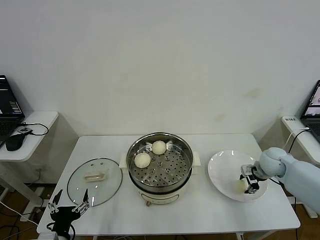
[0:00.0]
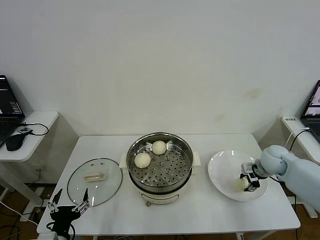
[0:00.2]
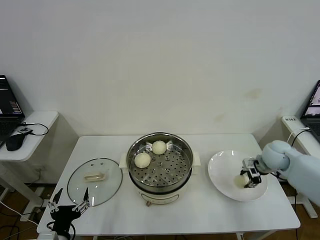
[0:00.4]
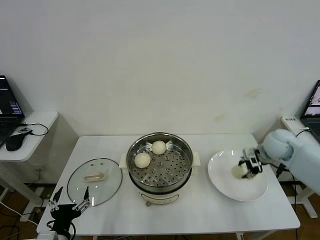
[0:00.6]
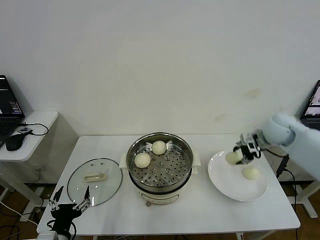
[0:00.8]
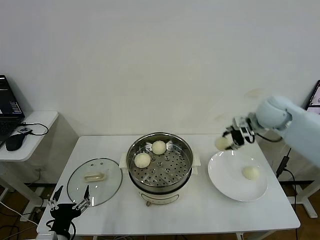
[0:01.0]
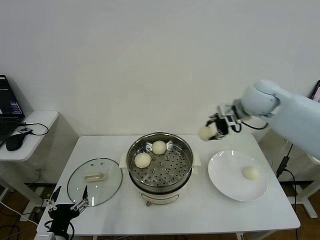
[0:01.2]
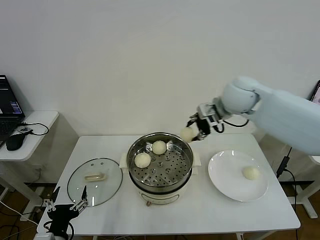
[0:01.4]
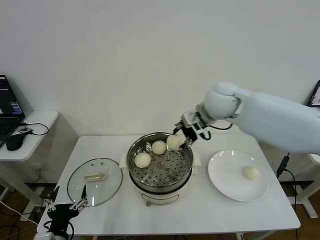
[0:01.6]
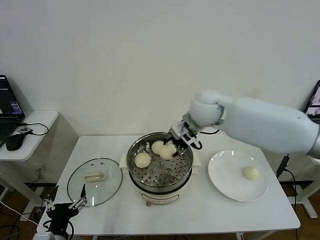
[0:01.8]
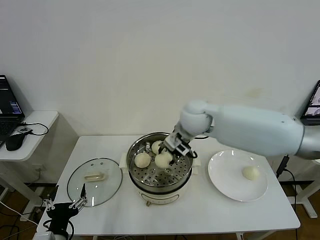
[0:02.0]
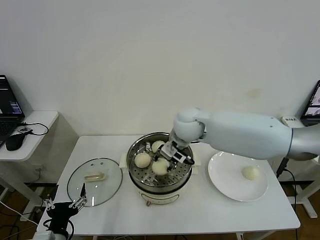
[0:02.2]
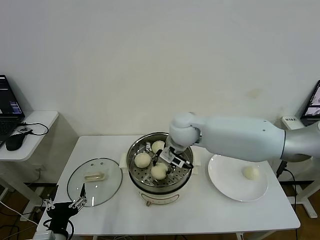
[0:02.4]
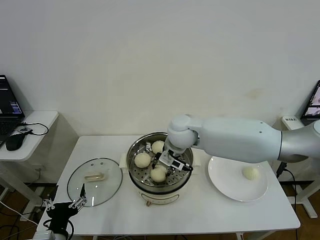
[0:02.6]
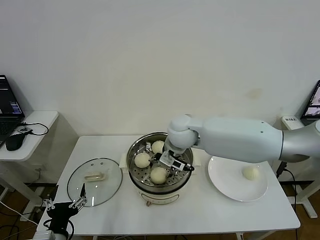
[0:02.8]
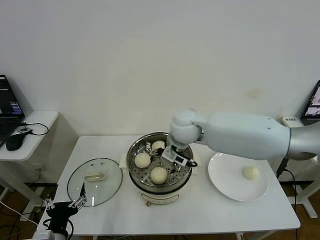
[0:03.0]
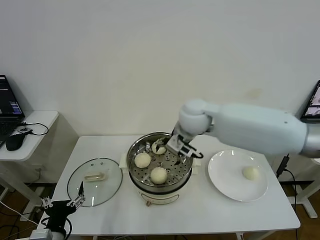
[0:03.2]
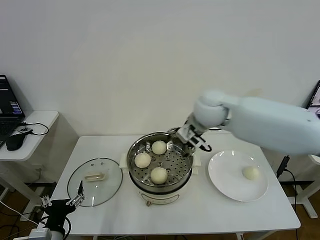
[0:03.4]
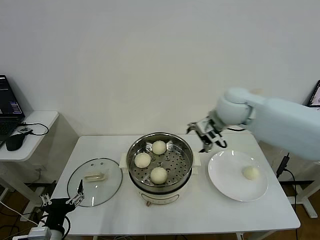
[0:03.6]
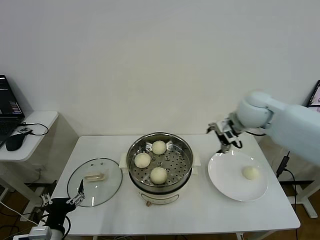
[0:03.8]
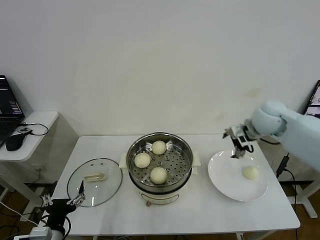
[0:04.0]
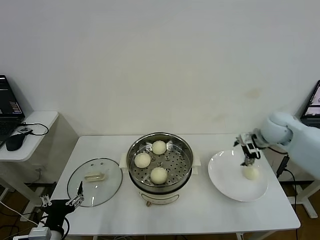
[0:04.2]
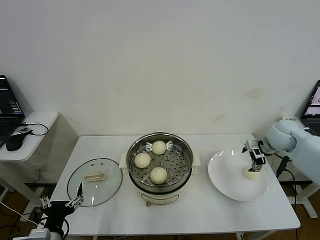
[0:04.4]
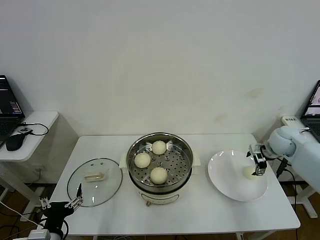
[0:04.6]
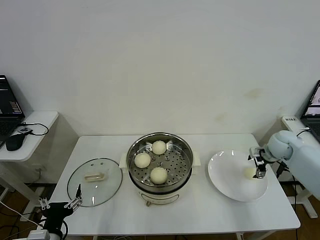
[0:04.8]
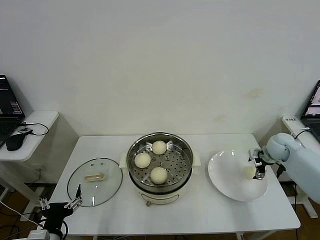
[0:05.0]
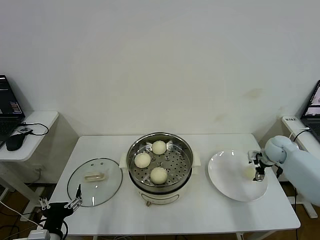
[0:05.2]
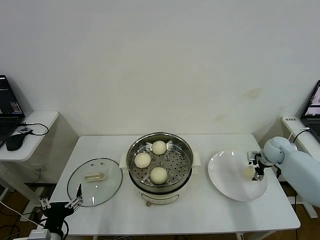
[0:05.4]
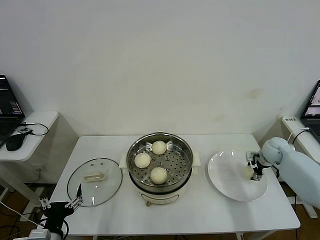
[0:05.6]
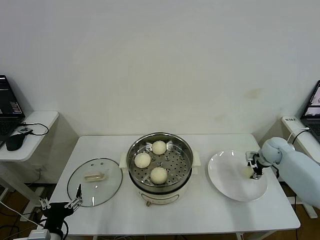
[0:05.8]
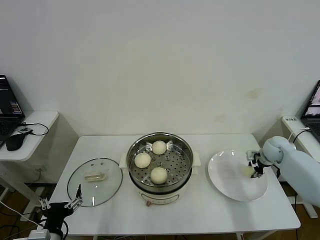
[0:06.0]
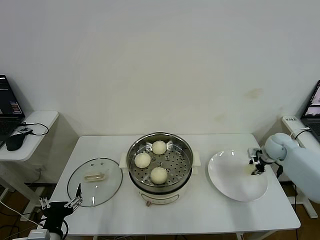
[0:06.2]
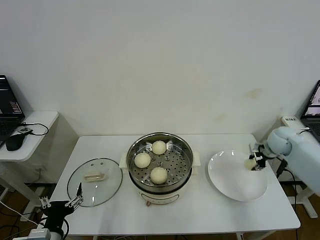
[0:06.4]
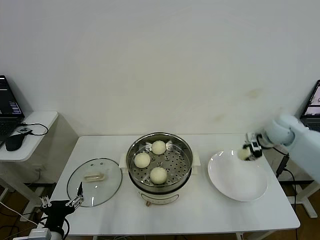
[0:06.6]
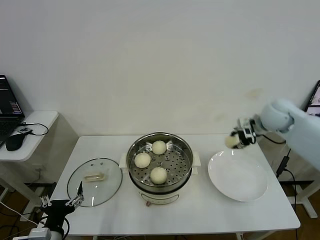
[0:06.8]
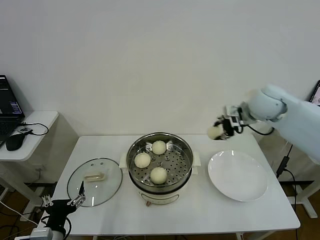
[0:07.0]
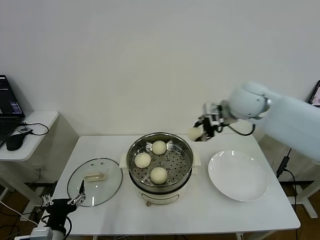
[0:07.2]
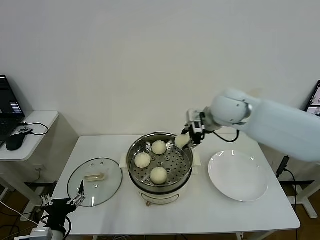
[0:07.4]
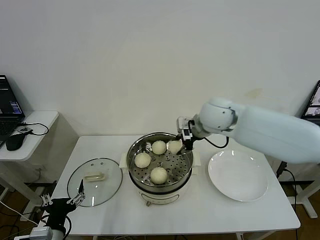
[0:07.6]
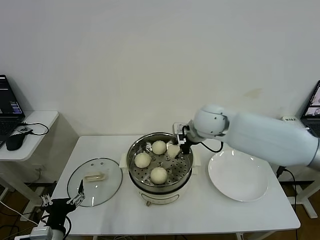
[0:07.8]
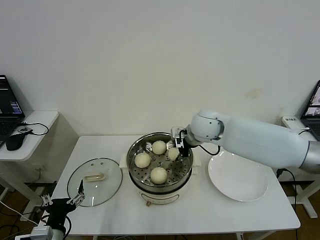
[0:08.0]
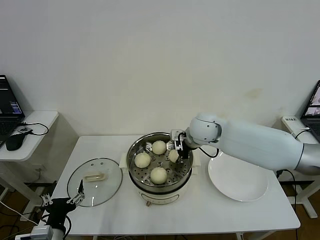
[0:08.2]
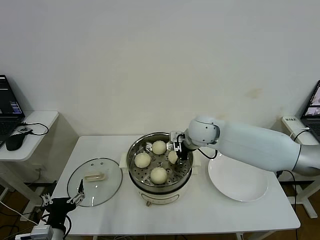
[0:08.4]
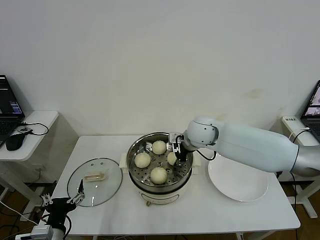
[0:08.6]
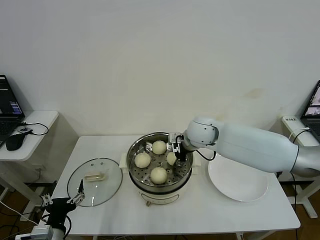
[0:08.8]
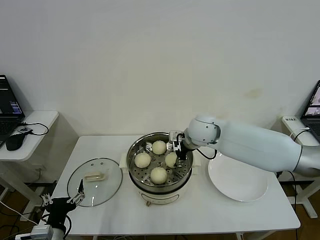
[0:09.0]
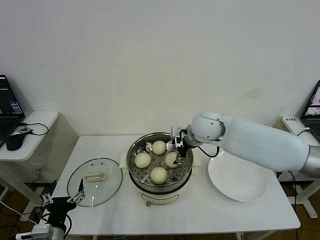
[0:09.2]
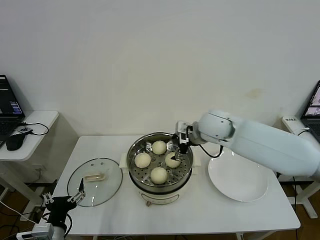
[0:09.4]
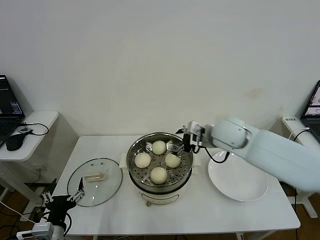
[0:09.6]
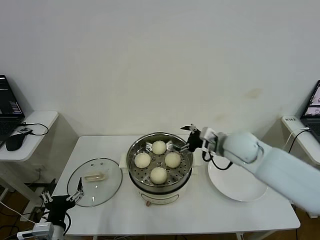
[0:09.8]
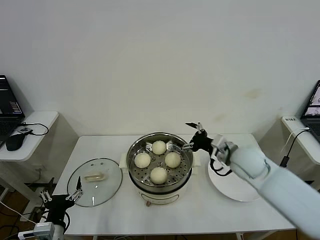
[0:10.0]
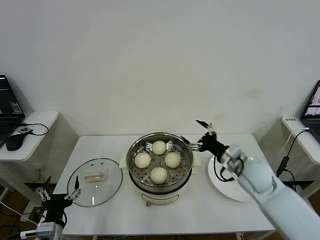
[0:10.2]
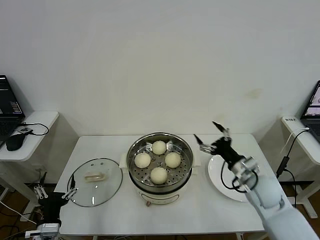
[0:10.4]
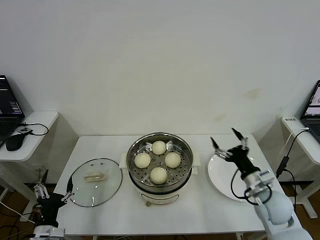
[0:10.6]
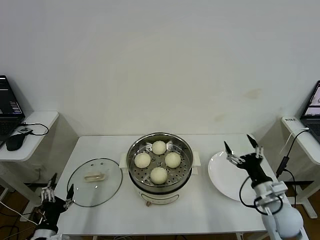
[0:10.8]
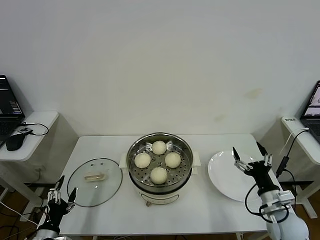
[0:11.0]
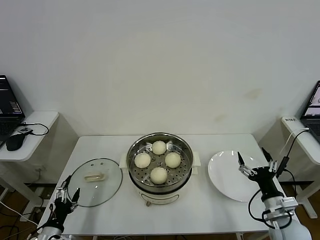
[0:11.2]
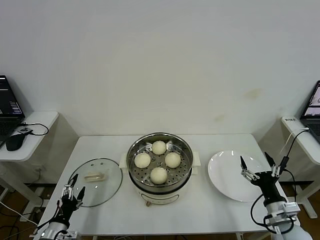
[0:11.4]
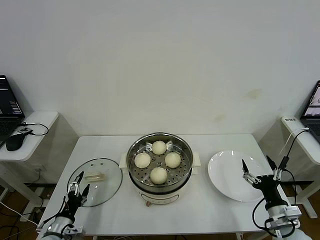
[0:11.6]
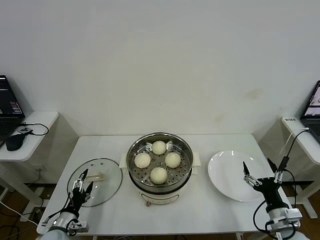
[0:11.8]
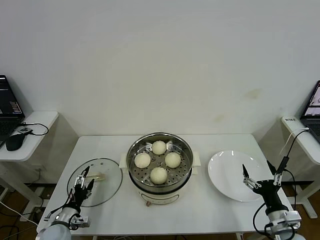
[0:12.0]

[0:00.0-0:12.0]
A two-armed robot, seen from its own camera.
Step, 0:00.4 to 0:02.8: Place the baozi on the steamer with right gripper.
Step, 0:03.0 to 0:06.0: Grasp the baozi in the plate with right gripper.
Step, 0:06.2 to 0:09.0: Place the baozi on the steamer with right gripper.
0:00.0 to 0:01.6: The right gripper moves to the left and upward, approximately 35 cm.
0:01.6 to 0:03.0: The right gripper travels to the left and downward by some 10 cm, and opens up.
0:03.0 to 0:04.4: The right gripper heads to the right, covering about 35 cm.
0:04.4 to 0:06.0: The right gripper travels downward by roughly 10 cm, and closes.
0:06.0 to 0:07.6: The right gripper is displaced to the left and upward by roughly 35 cm.
0:07.6 to 0:09.0: The right gripper is displaced downward by some 5 cm, and opens its fingers.
0:09.0 to 0:10.4: The right gripper heads to the right, backward and downward, covering roughly 25 cm.
0:10.4 to 0:12.0: The right gripper goes roughly 20 cm backward, downward and to the right. Meanwhile the left gripper is displaced downward and forward by approximately 10 cm.

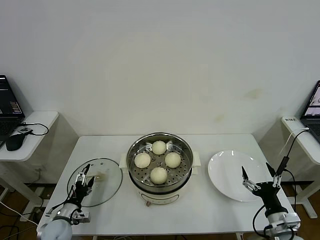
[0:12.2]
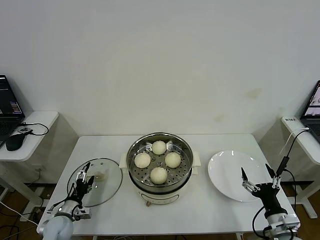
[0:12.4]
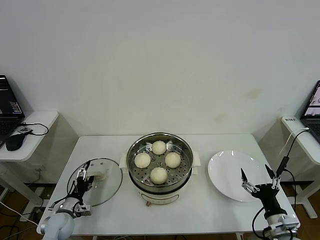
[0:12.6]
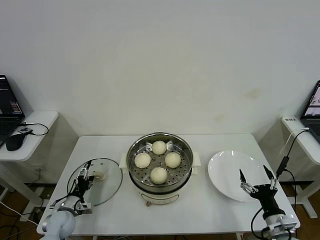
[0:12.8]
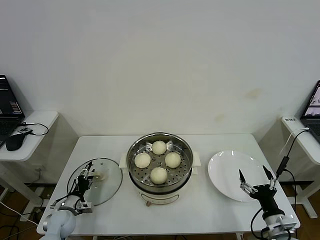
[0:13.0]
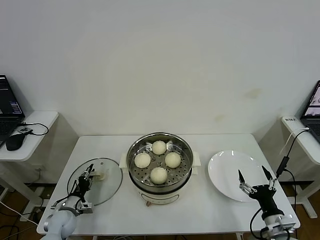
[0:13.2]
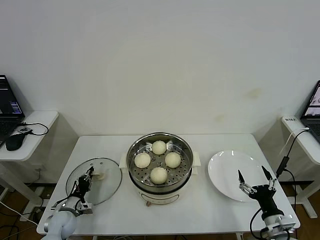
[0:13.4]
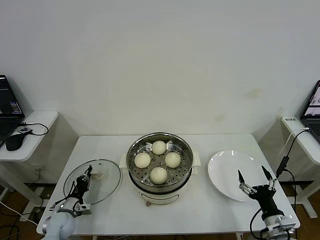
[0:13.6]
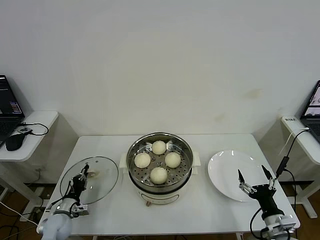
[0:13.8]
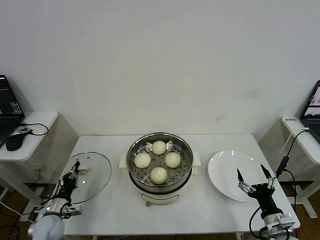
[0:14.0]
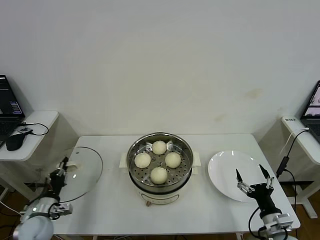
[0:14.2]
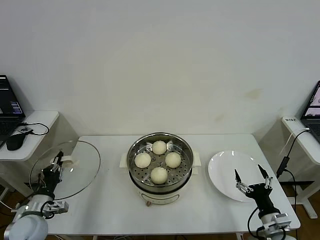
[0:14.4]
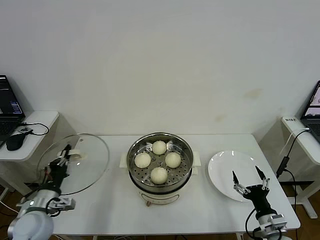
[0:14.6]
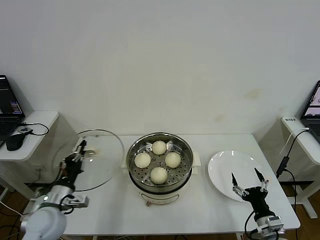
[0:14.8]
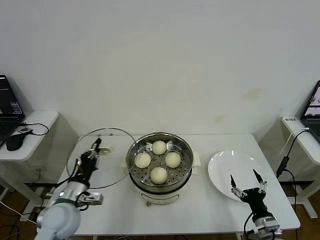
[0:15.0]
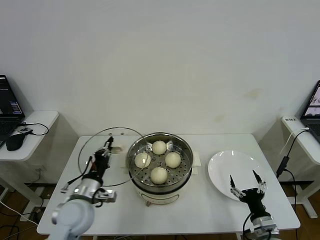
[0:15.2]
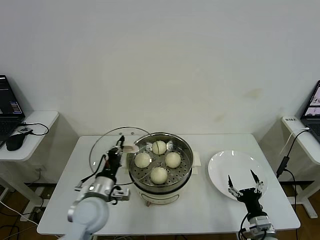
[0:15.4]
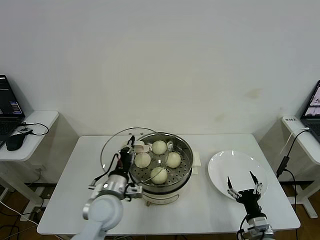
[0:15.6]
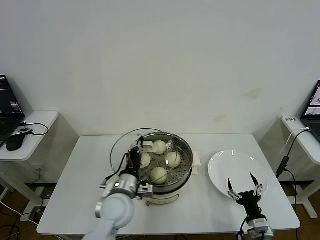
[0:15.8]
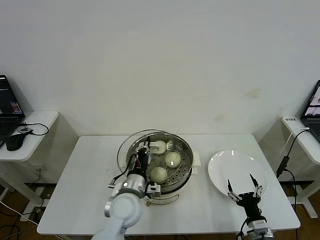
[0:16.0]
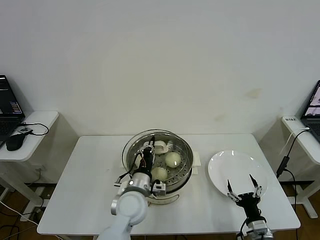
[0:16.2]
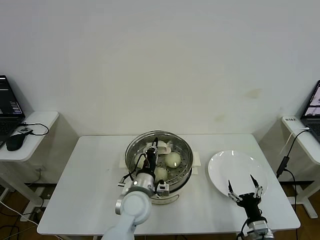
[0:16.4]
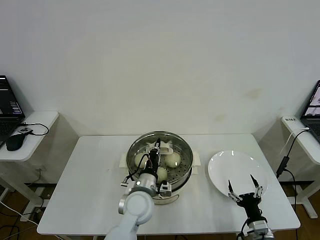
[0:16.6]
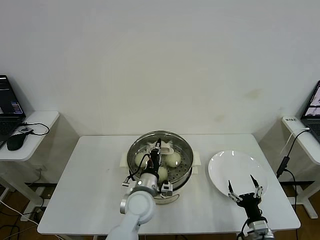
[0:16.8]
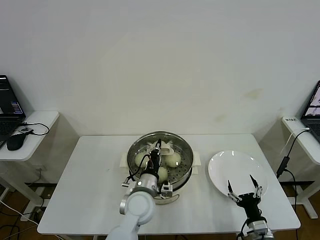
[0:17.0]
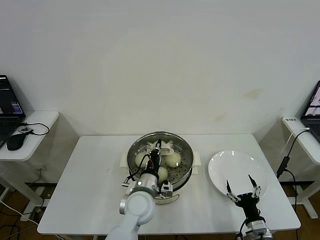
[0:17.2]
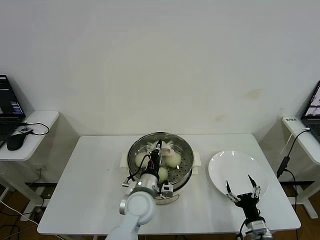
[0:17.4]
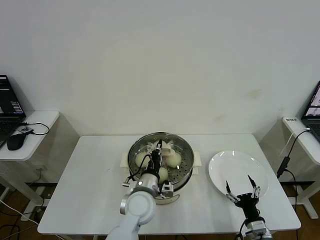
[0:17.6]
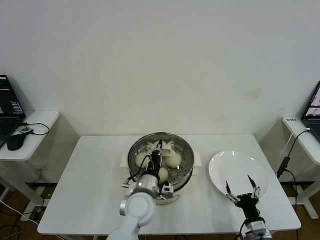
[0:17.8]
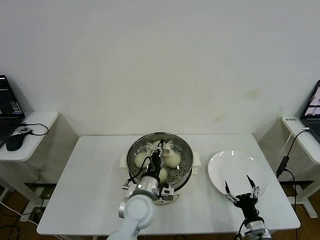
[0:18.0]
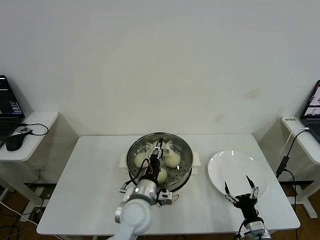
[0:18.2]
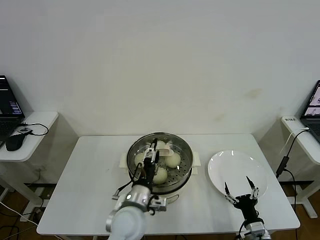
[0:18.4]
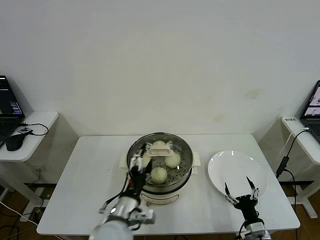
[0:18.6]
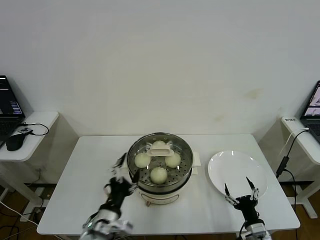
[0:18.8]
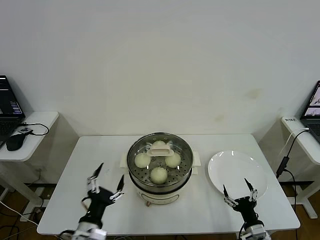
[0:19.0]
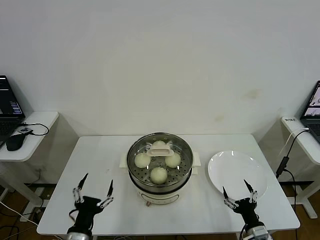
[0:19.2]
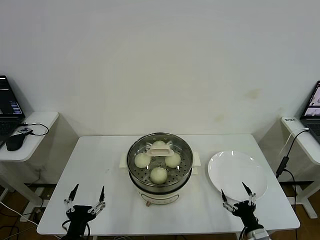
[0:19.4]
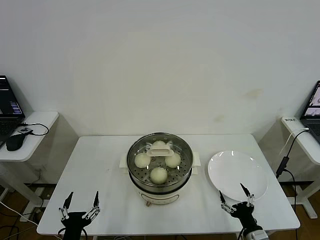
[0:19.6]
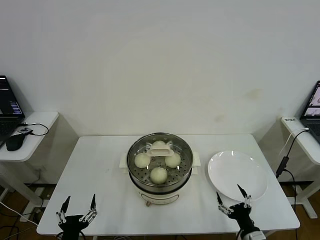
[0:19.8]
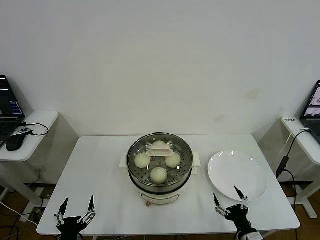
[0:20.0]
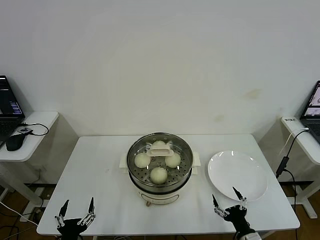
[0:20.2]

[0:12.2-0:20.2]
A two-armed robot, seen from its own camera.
Step, 0:13.8 to 0:18.2: Place the pot lid on the steamer with left gripper.
0:12.2 to 0:13.8: The left gripper closes.
0:13.8 to 0:15.4: The left gripper travels upward and to the right by approximately 25 cm. The right gripper changes place by some 5 cm.
0:15.4 to 0:17.0: The left gripper goes roughly 15 cm to the right.
0:17.0 to 0:18.6: The left gripper shifts some 10 cm backward, and opens.
0:18.6 to 0:20.2: The left gripper goes approximately 25 cm to the left, backward and downward.
